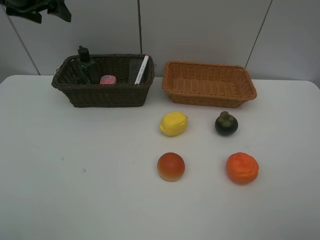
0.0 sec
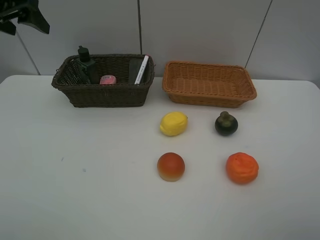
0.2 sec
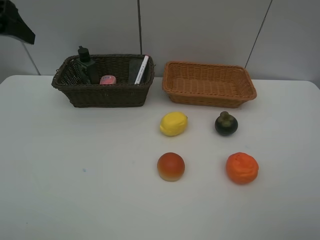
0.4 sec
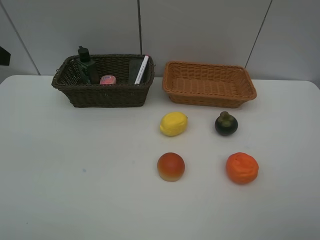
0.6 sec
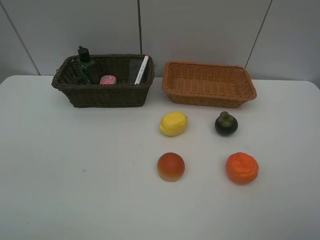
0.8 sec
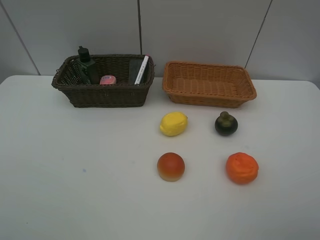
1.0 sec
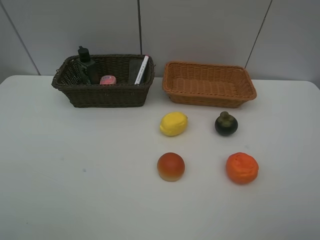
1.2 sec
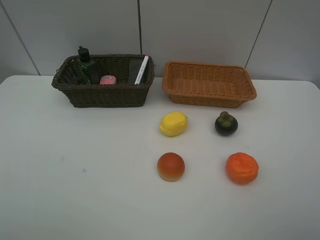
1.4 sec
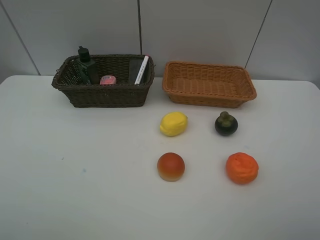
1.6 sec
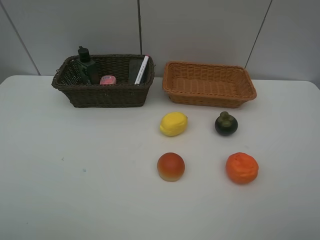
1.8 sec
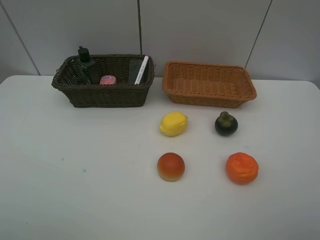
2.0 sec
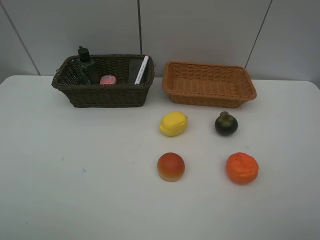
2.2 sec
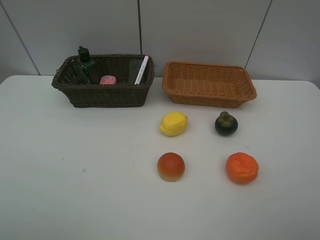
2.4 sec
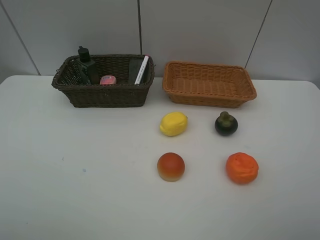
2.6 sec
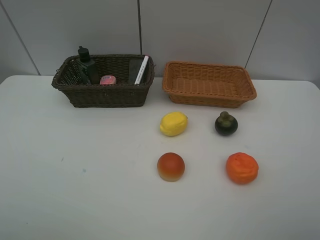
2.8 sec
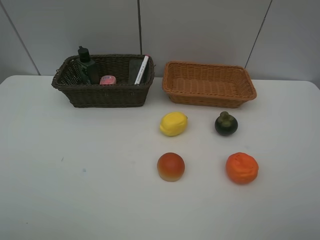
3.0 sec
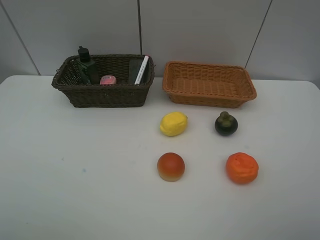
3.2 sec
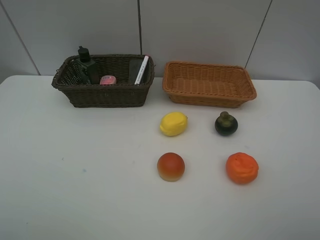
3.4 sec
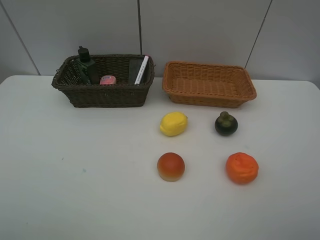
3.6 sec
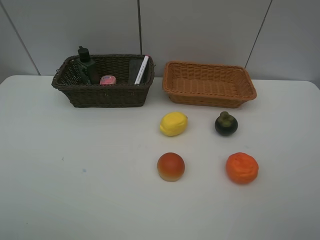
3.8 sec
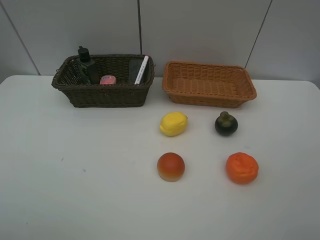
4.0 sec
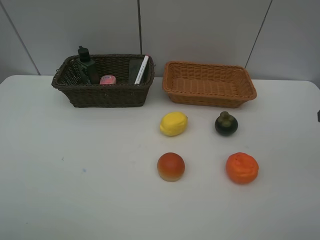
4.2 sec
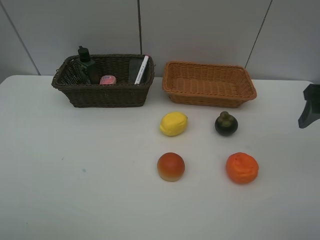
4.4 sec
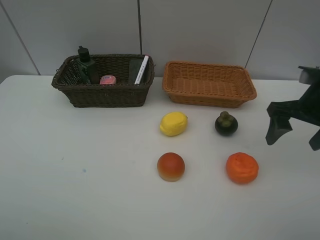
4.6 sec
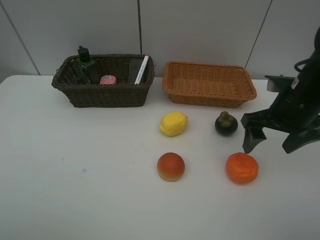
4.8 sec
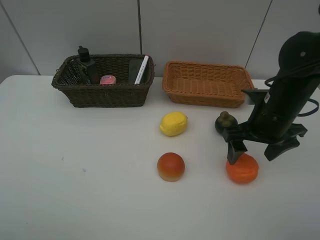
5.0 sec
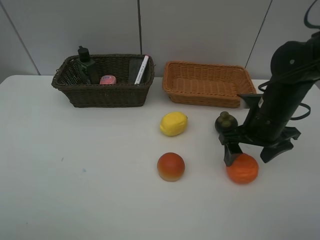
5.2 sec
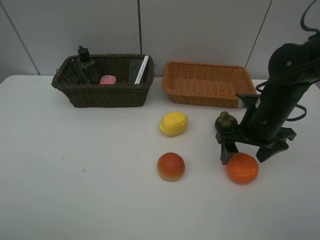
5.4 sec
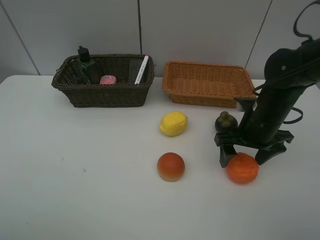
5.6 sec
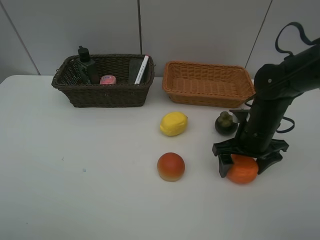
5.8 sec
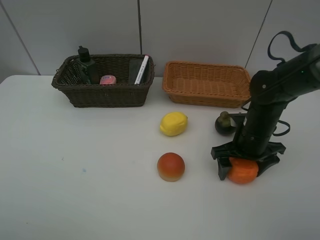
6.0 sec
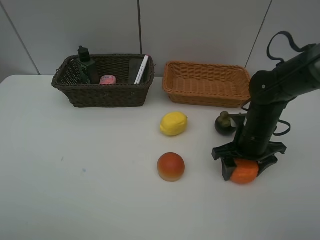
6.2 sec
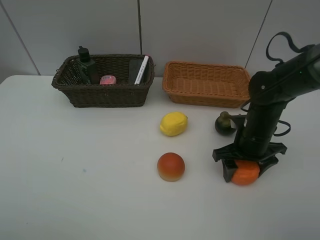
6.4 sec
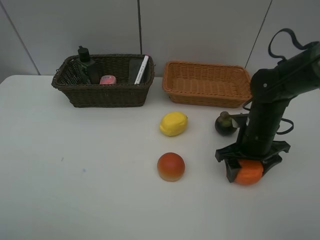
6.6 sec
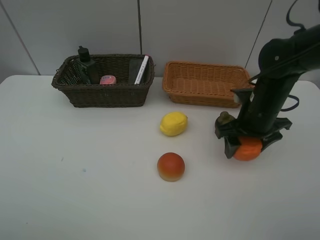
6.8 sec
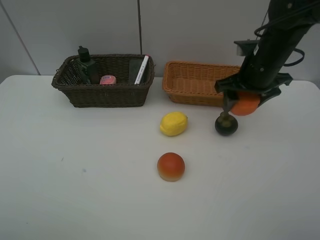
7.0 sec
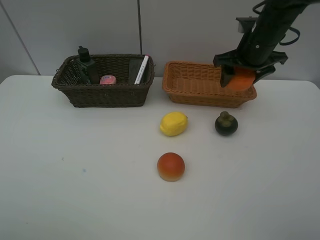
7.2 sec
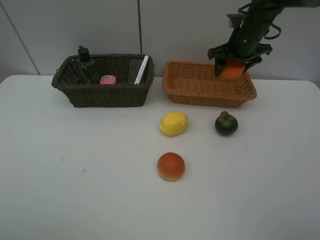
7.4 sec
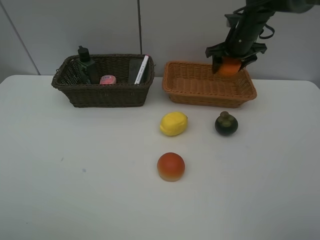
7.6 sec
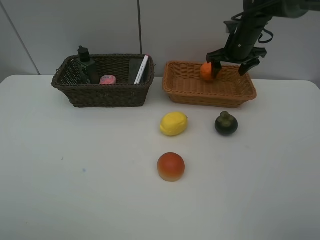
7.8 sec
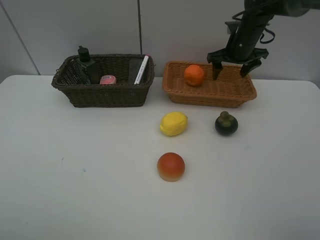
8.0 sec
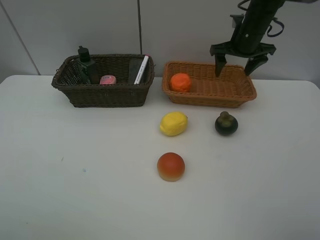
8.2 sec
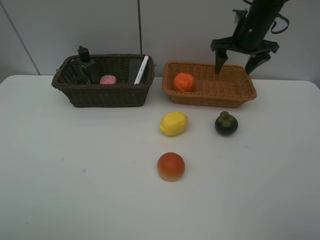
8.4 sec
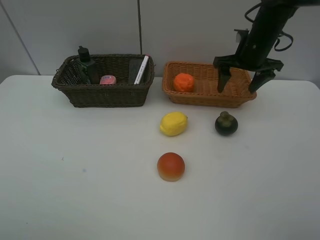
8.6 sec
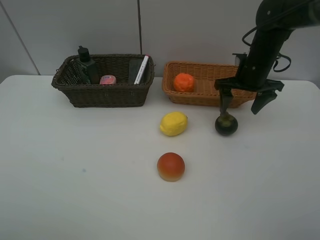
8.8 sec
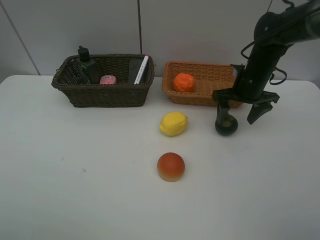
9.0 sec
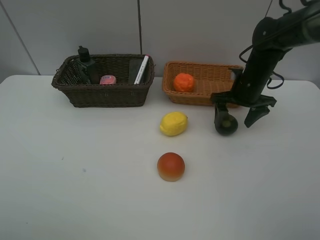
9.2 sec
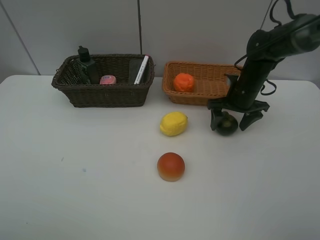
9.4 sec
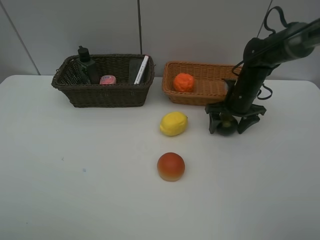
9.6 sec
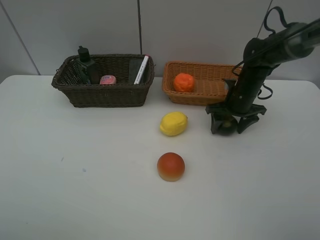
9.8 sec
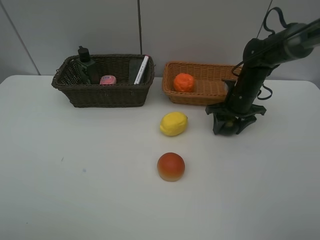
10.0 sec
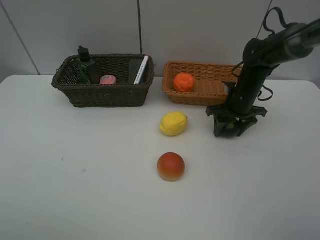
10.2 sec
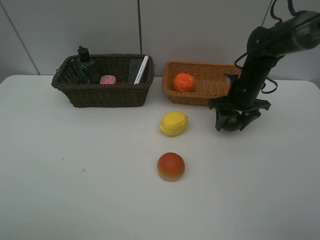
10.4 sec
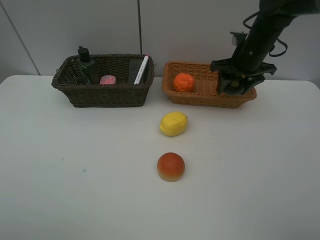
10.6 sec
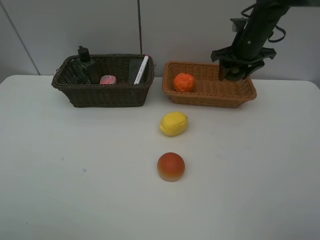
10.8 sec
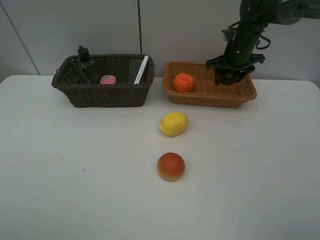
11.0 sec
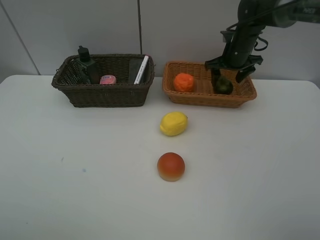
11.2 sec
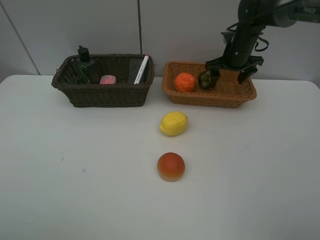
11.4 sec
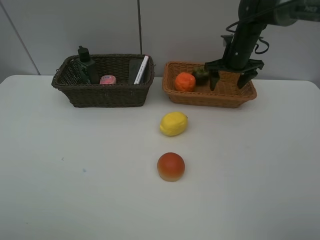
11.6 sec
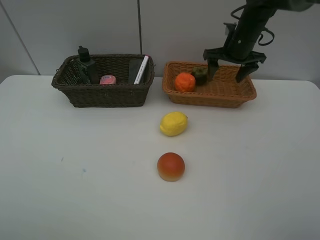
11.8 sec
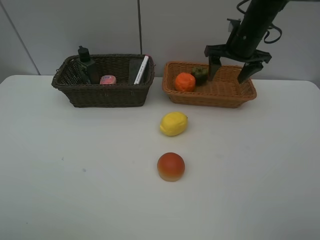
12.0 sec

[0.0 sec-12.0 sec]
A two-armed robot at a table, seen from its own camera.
Task of the whole recording: Place multiple objects separately in different baskets.
Step, 0.0 sec to 6.8 sec: Pick up the orange with right gripper.
Step, 7.0 sec to 8.0 sec: Place the orange in the light basket with right gripper.
Step, 8.2 sec to 10.4 sec: Pick up the mangosteen with right gripper.
Step, 10.6 sec to 11.6 sec: Place the mangosteen in the light basket with right gripper.
0.0 sec to 1.6 sec: The left gripper goes some 40 cm backward.
3.0 sec to 4.4 sec: The right gripper travels forward by roughly 25 cm.
4.4 sec to 6.0 sec: The right gripper travels downward and to the left by some 20 cm.
6.0 sec to 7.6 sec: The right gripper goes approximately 25 cm forward and upward, and closes up.
7.6 sec to 9.0 sec: The right gripper heads backward and downward, covering approximately 10 cm, and opens up.
9.0 sec to 10.4 sec: The right gripper closes up.
10.4 sec to 12.0 sec: The right gripper travels upward by approximately 10 cm, and opens.

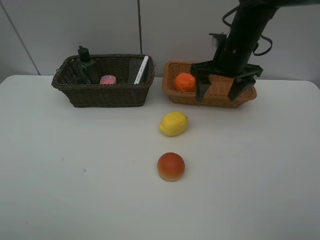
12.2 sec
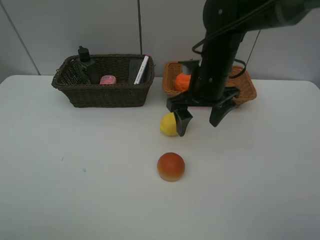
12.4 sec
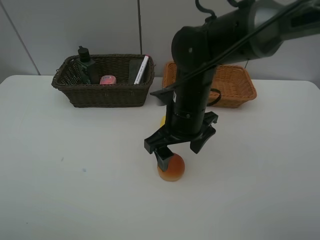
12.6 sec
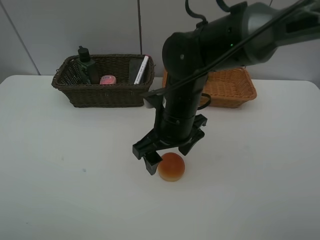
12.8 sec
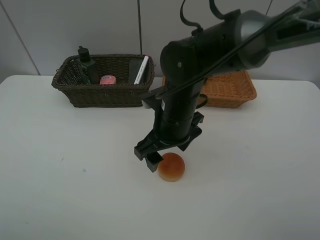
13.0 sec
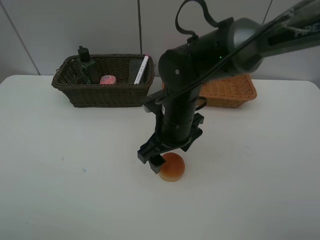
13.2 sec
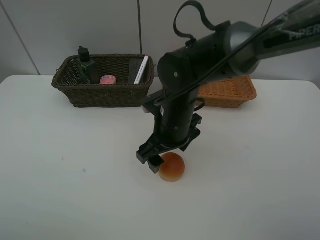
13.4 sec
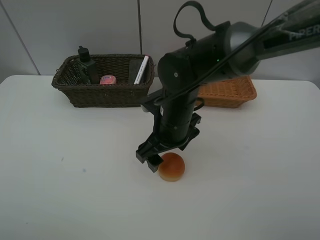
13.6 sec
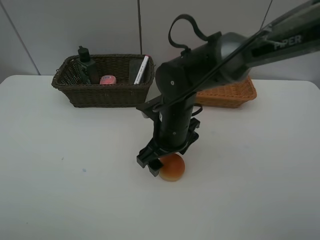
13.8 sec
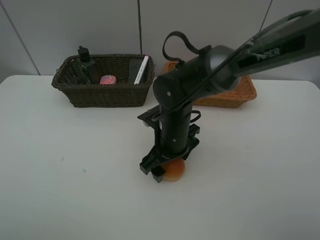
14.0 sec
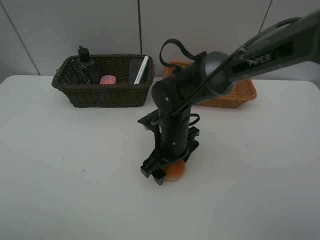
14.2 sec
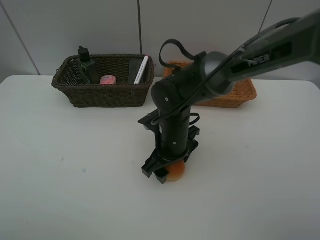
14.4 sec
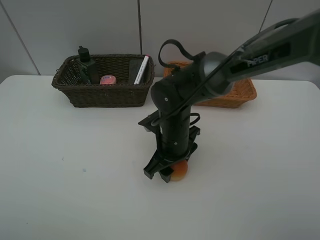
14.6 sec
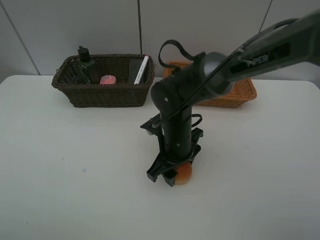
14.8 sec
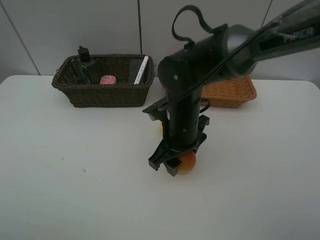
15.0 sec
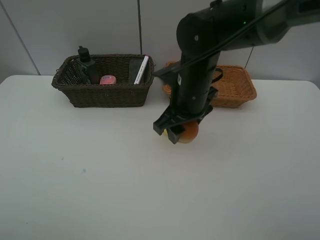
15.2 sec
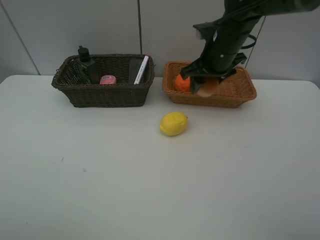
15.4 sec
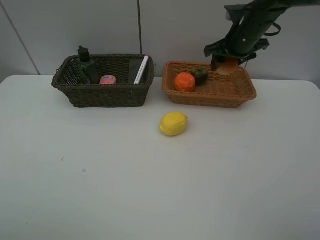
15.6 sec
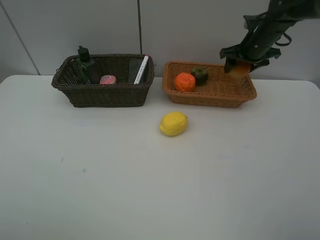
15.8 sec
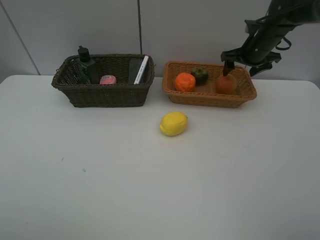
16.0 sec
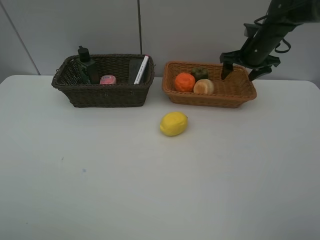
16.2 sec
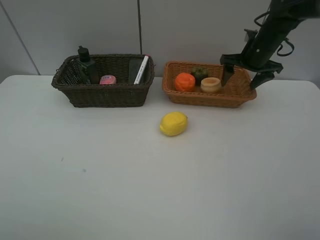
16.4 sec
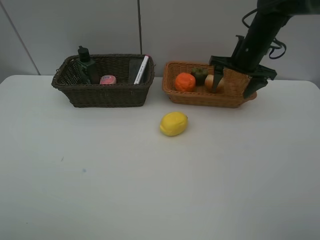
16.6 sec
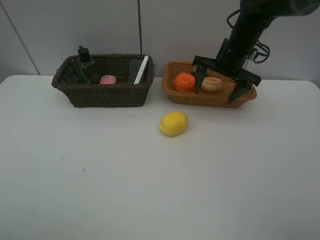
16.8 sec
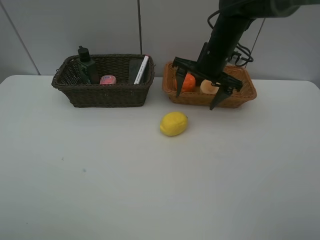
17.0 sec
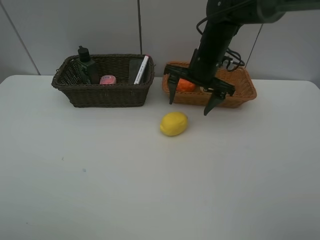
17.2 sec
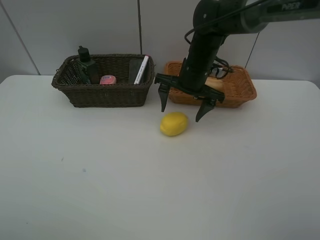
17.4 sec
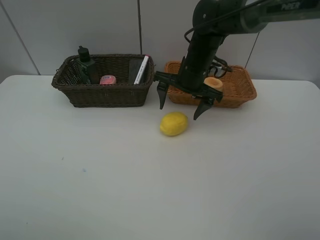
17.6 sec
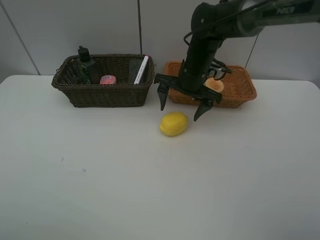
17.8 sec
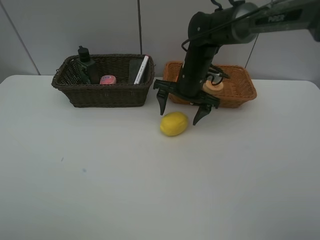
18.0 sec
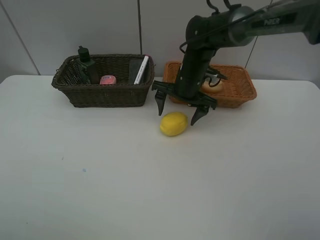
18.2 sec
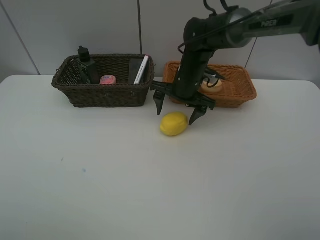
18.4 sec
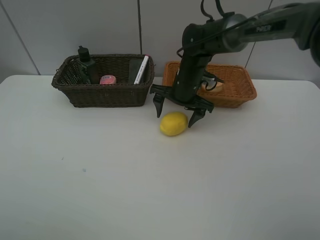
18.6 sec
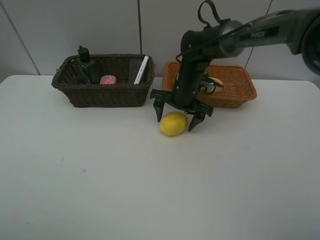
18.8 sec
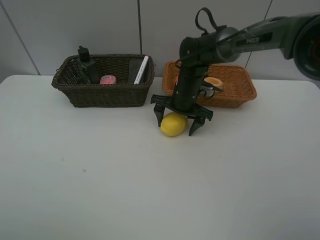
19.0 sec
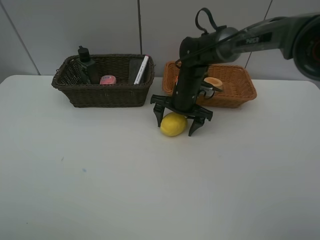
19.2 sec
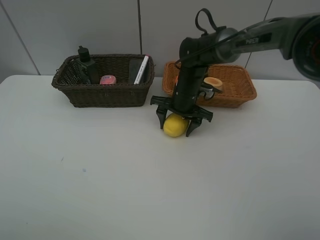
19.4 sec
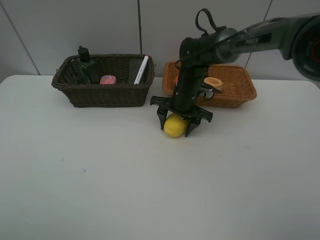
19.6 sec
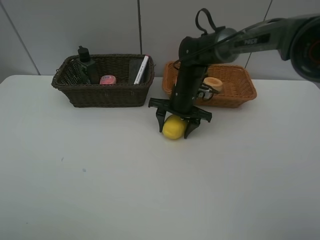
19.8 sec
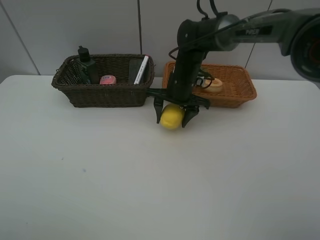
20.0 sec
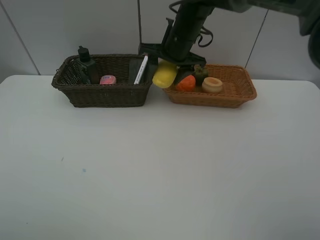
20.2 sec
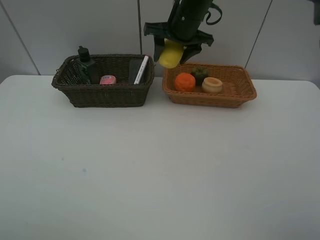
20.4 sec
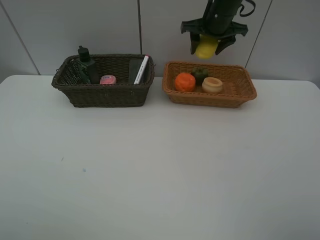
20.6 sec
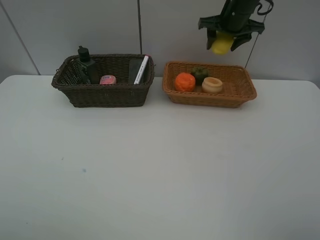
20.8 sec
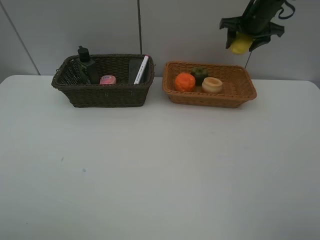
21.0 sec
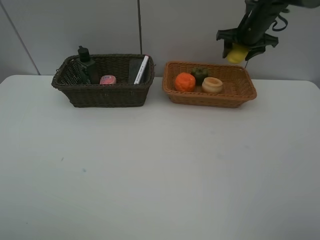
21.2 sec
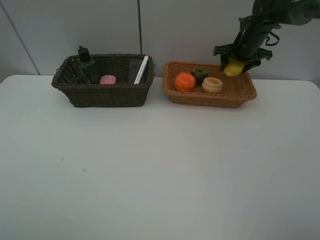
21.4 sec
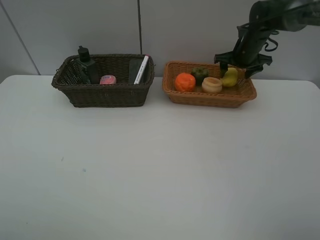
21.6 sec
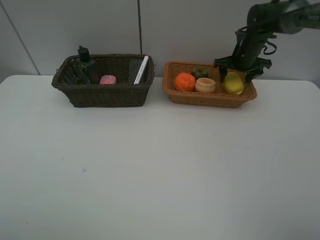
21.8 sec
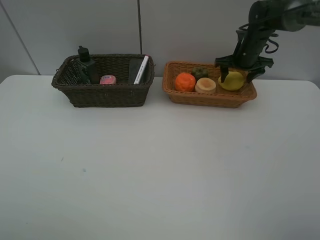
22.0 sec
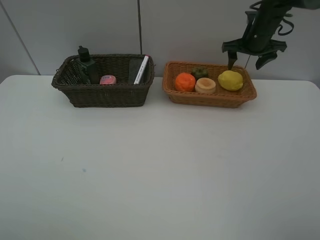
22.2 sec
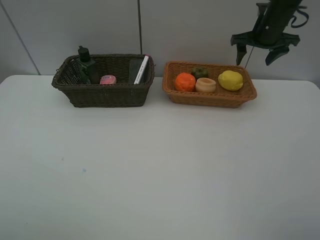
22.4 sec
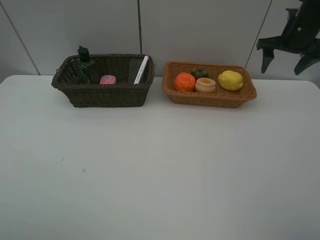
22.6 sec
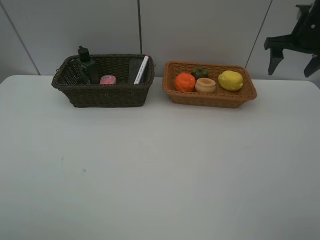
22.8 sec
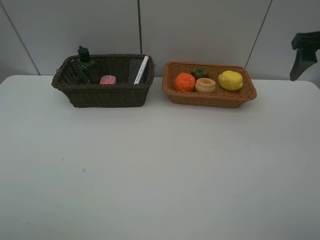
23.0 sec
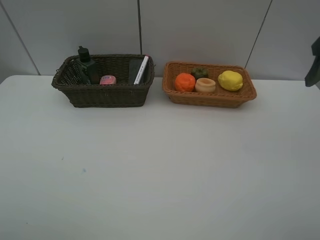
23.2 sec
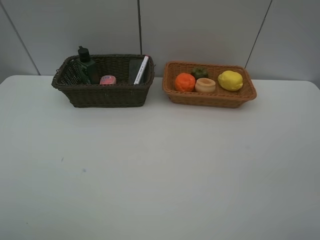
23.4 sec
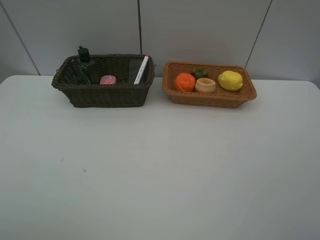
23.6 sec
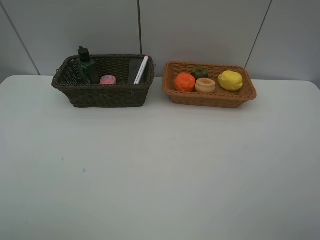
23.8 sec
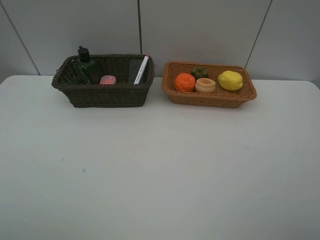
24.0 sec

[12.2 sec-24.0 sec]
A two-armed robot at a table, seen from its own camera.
Task of the whole recording: Place multiple objects separately in different baskets.
Step, 12.2 sec to 15.0 sec: Pick up egg yolk pastry with right gripper.
Step, 15.2 sec to 16.2 sec: Place the egg yolk pastry in the light basket with right gripper.
Step, 16.4 sec to 20.0 sec: Pick up the lemon with right gripper.
Step, 20.2 sec to 22.2 sec: Place the lemon in the light basket with right gripper.
12.2 sec to 13.6 sec: The right gripper shifts roughly 15 cm to the left, backward and downward.
13.6 sec to 15.2 sec: The right gripper moves approximately 5 cm, and closes up.
15.2 sec to 16.6 sec: The right gripper is displaced to the right and forward by roughly 20 cm, and opens its fingers.
16.6 sec to 18.2 sec: The right gripper shifts approximately 15 cm to the left and downward.
18.2 sec to 19.6 sec: The right gripper closes.
19.6 sec to 21.0 sec: The right gripper is displaced to the right, upward and forward by some 25 cm.
21.0 sec to 22.6 sec: The right gripper moves to the right and backward, about 10 cm, goes downward and returns, approximately 10 cm each way, and opens its fingers.
22.6 sec to 24.0 sec: The right gripper goes roughly 40 cm backward.
